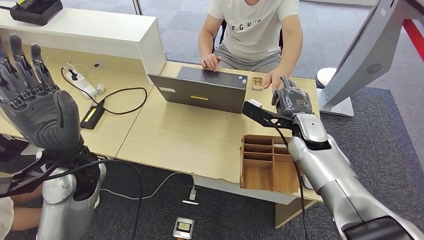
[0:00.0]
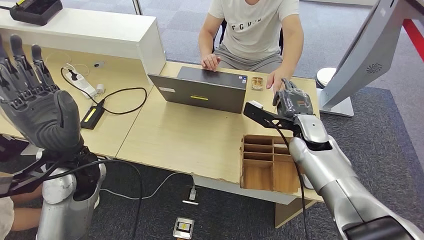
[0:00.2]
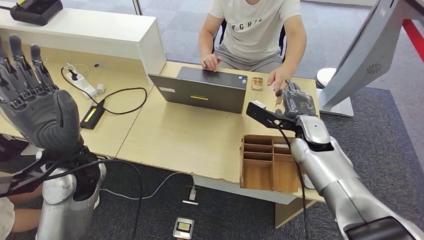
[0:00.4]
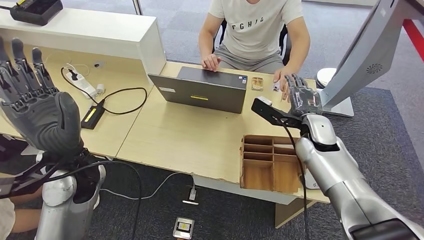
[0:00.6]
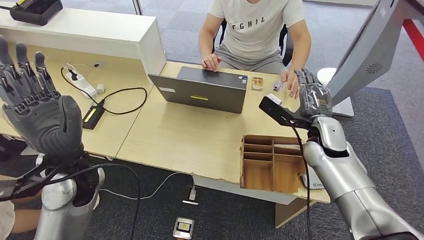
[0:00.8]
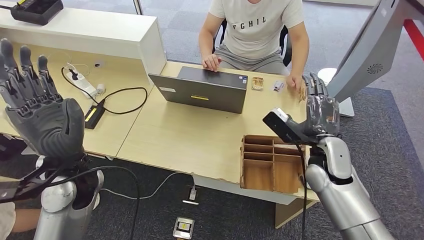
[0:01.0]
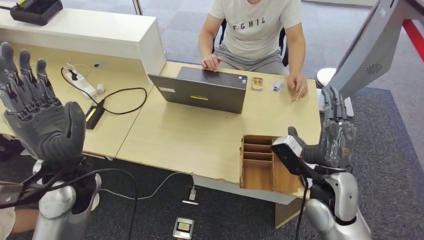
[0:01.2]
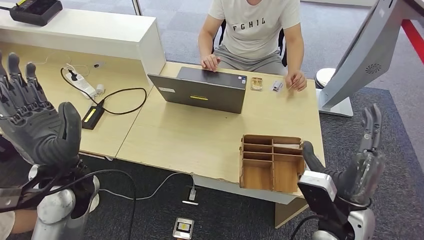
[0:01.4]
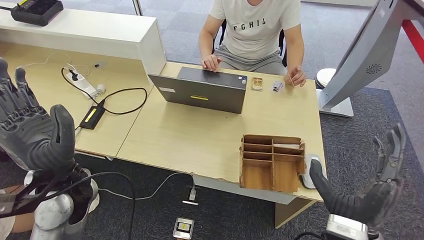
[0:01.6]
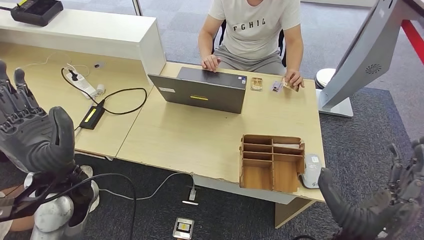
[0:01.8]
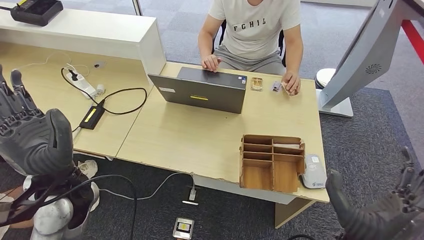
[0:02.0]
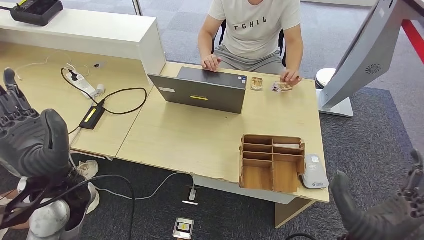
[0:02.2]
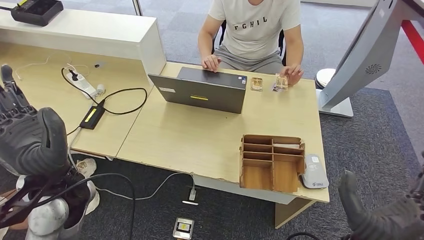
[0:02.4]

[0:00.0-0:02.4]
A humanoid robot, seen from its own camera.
Step, 0:00.0 to 0:02.4: Hand the room key to the person.
0:00.0 to 0:01.2: The right hand goes roughly 10 cm backward.
0:01.2 to 0:02.4: The right hand shifts roughly 15 cm backward.
